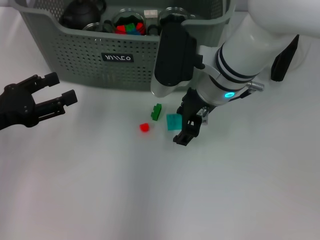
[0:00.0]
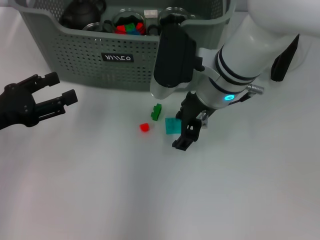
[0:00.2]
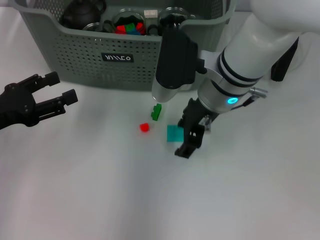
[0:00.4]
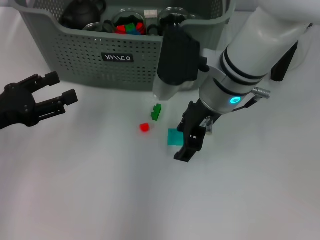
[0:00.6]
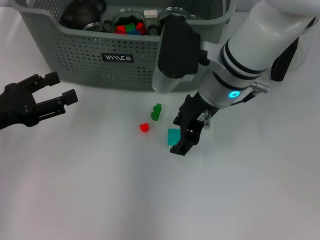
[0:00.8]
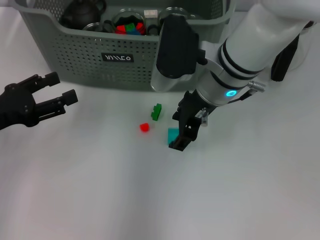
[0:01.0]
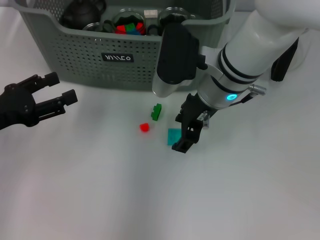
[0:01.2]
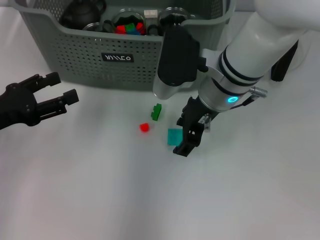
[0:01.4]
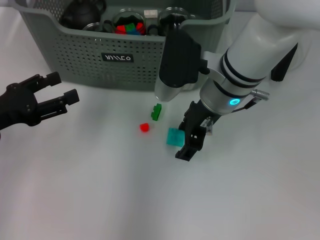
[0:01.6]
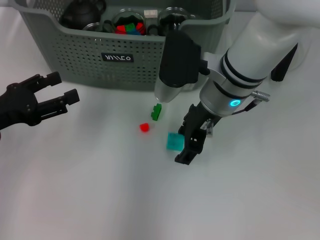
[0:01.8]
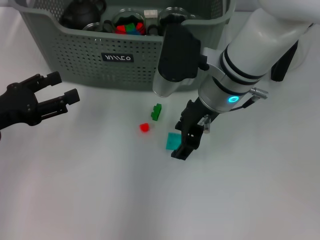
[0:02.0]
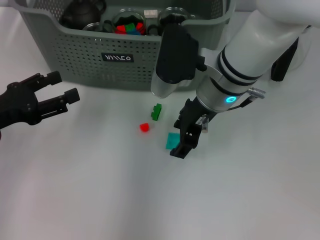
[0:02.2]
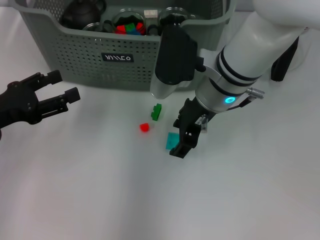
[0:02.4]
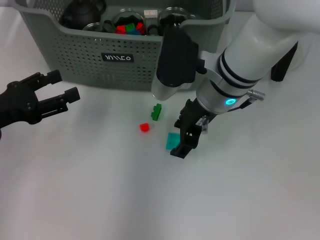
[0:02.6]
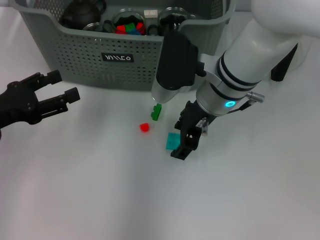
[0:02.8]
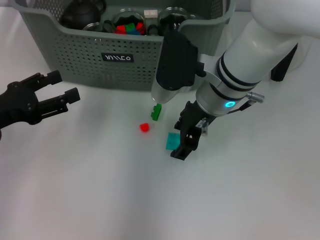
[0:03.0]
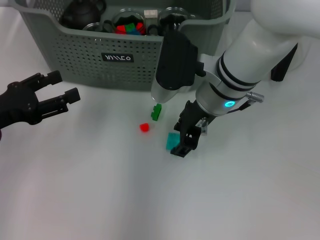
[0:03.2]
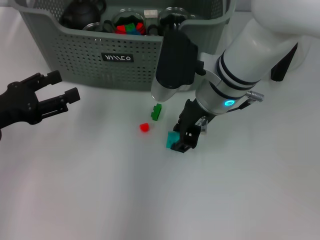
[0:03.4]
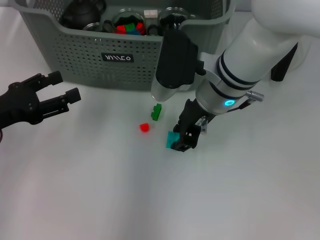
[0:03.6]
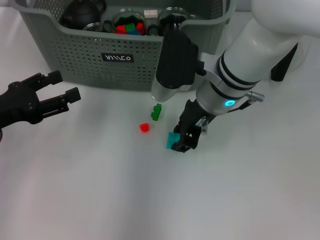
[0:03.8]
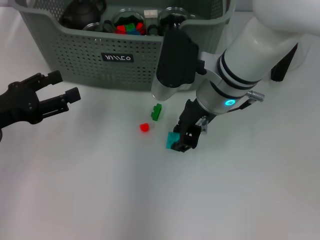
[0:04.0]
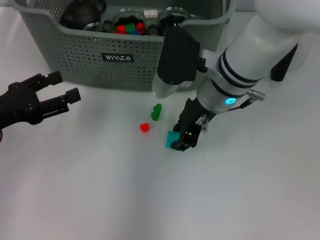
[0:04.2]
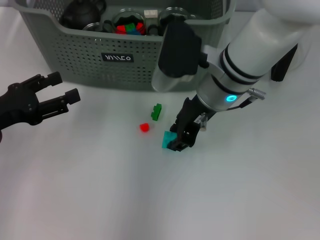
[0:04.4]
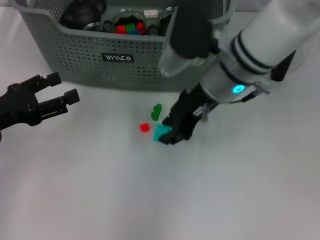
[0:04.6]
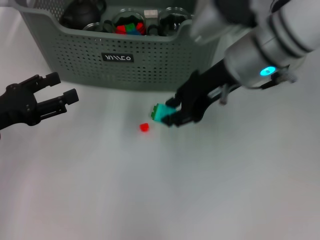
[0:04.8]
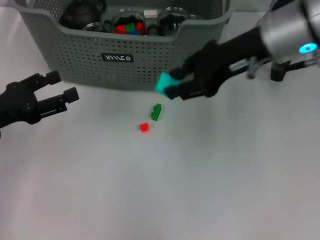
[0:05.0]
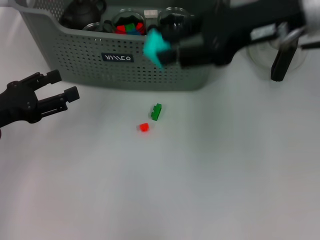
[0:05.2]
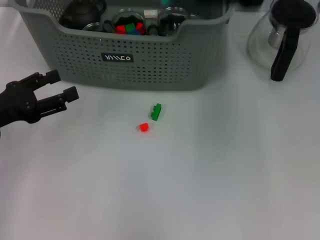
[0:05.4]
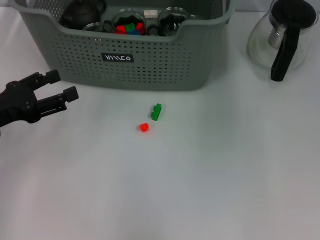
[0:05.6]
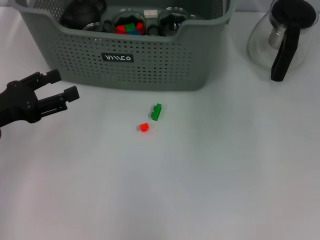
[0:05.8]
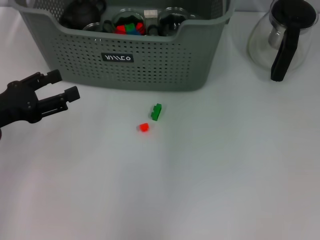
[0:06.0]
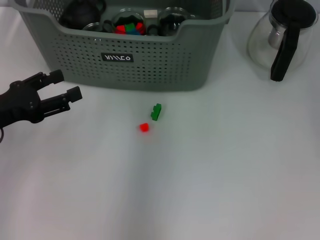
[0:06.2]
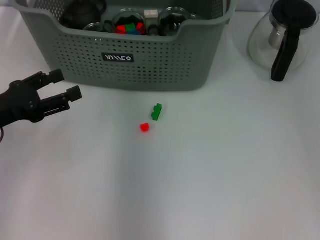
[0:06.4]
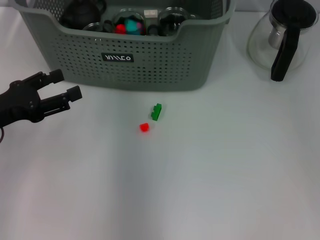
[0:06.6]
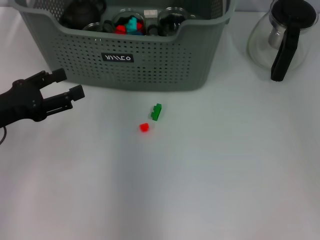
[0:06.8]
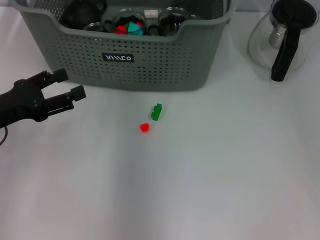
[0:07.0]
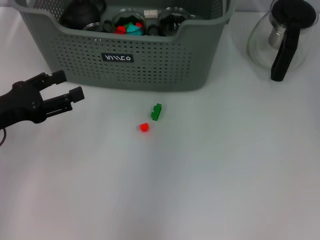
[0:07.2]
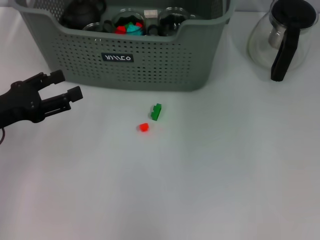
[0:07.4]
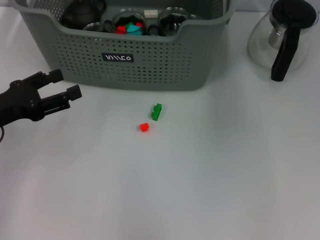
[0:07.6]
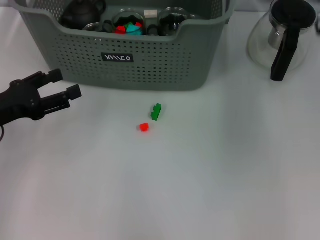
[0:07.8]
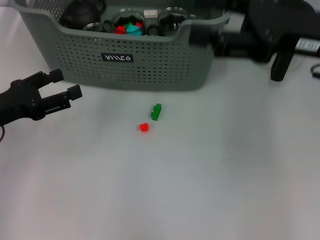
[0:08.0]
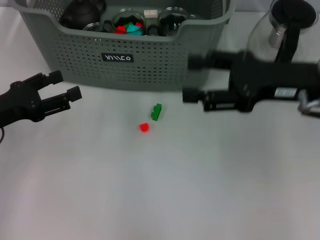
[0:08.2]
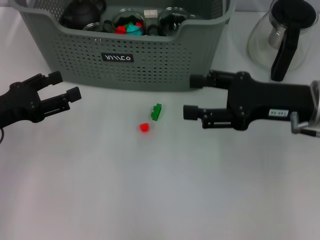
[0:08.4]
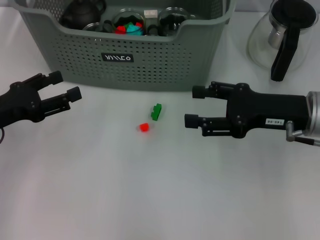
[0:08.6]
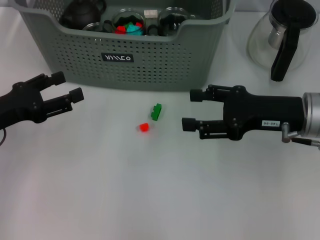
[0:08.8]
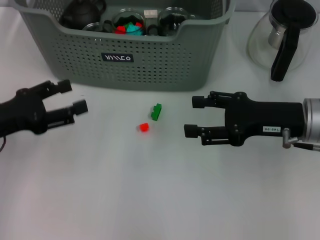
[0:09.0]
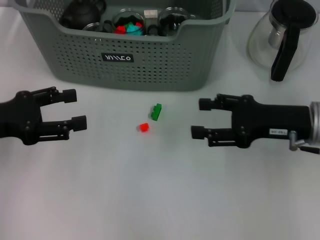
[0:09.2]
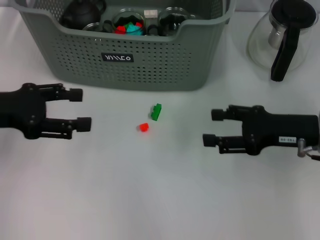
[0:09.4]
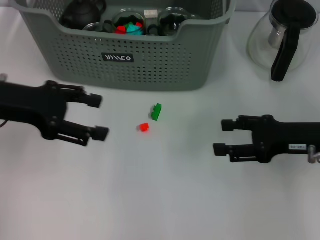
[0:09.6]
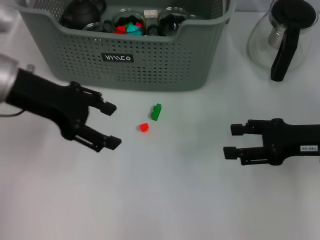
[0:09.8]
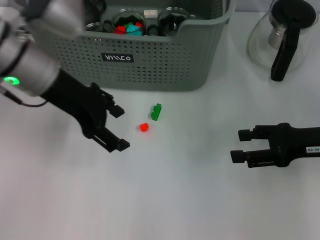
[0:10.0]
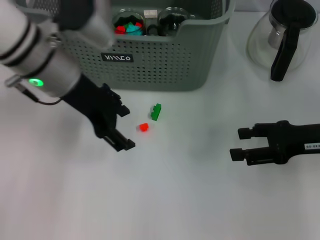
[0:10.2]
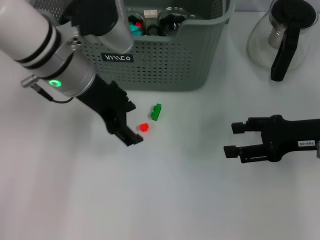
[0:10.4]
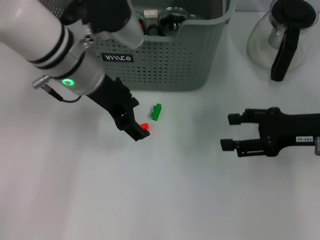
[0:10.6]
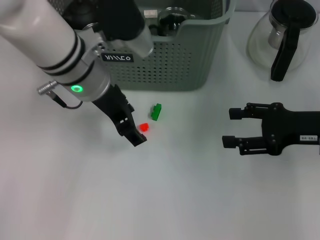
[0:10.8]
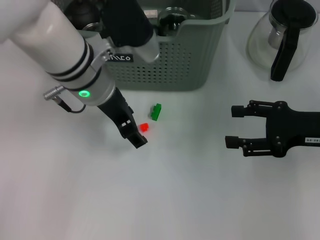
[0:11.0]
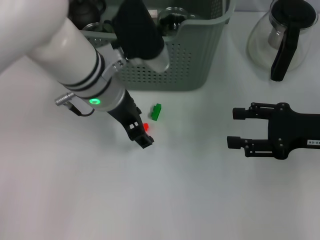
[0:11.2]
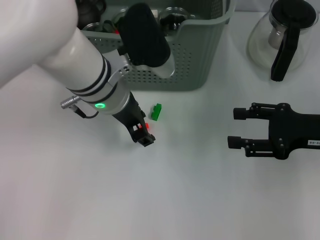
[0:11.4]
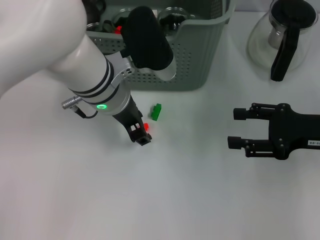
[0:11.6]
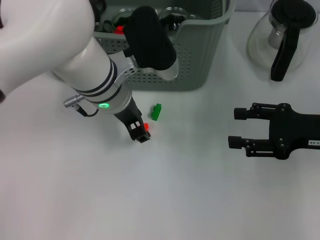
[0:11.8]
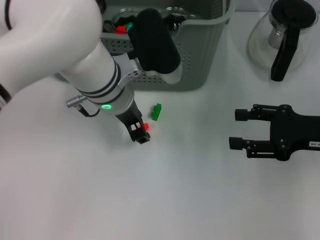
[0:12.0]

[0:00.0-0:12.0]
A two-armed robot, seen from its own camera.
Task of the whole recording: pick up the teacup on the table and place it into the storage bin, pick up the block on the table and place it into the storage bin.
Step, 0:00.0 to 0:03.8: Grasp the light blue block with right gripper.
Step, 0:04.0 to 0:06.6: Place the light blue block in the storage box with right gripper.
0:00.0 to 0:01.6: The grippers make only small movements.
0:01.6 to 0:03.0: The two grippers keep their place.
0:03.0 to 0:04.4: The right gripper closes.
0:04.4 to 0:06.0: The right gripper shifts some 20 cm upward.
0:06.0 to 0:07.6: The right gripper is displaced downward, to the right and backward by approximately 10 cm, and closes and opens again.
0:07.6 to 0:09.0: The right gripper travels downward by some 15 cm, and opens its fingers.
0:09.0 to 0:10.4: The right gripper moves to the right, roughly 5 cm; the left gripper is displaced to the right, forward and upward by approximately 20 cm.
0:10.4 to 0:12.0: The left gripper shifts some 5 cm to the right, and closes its fingers.

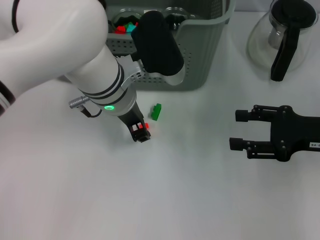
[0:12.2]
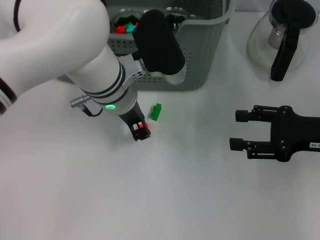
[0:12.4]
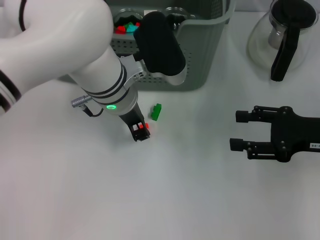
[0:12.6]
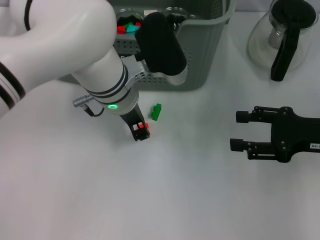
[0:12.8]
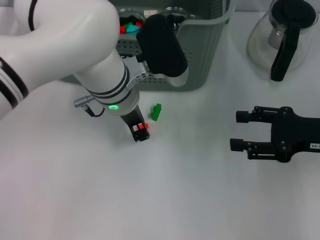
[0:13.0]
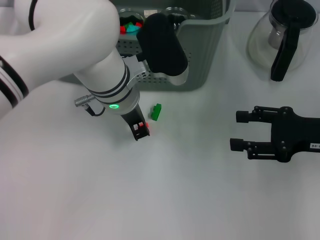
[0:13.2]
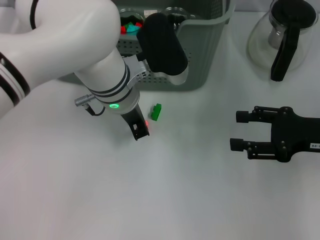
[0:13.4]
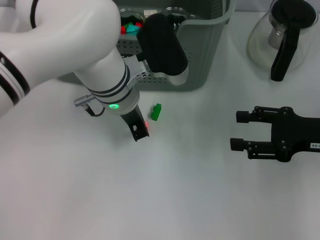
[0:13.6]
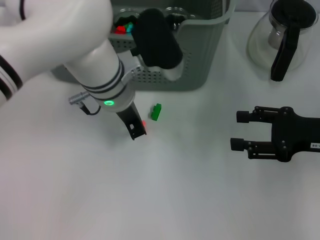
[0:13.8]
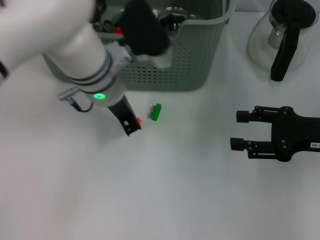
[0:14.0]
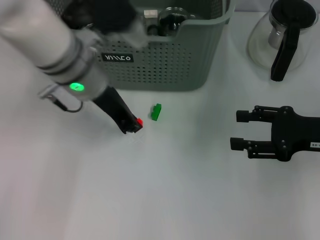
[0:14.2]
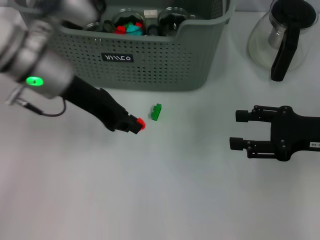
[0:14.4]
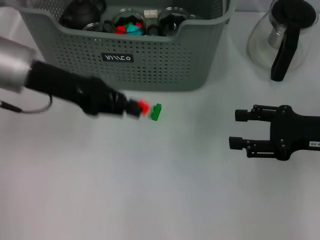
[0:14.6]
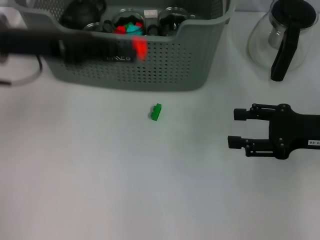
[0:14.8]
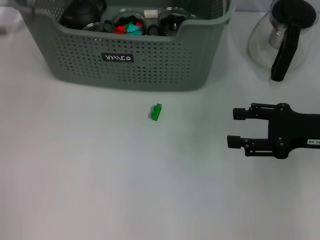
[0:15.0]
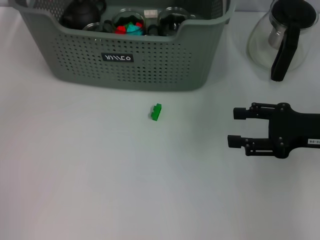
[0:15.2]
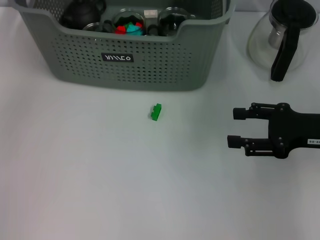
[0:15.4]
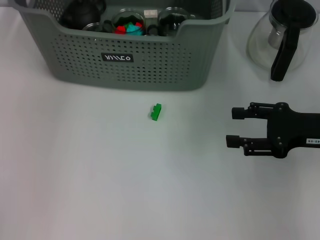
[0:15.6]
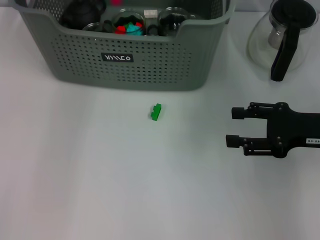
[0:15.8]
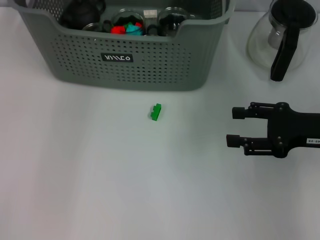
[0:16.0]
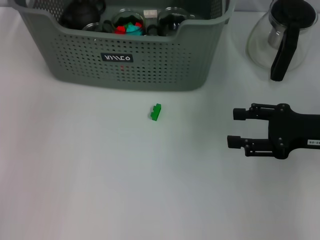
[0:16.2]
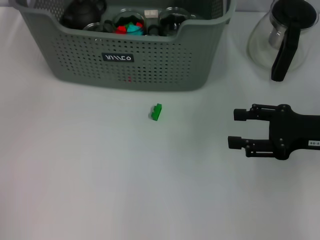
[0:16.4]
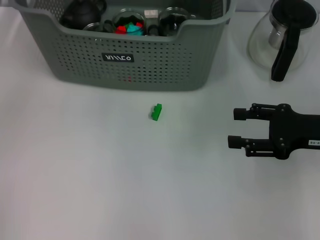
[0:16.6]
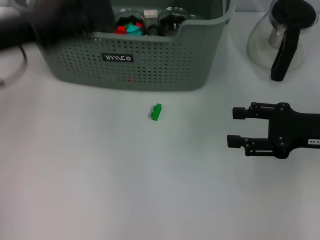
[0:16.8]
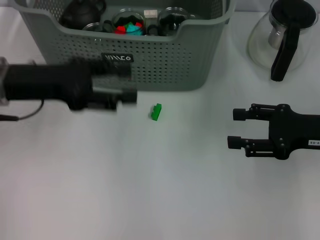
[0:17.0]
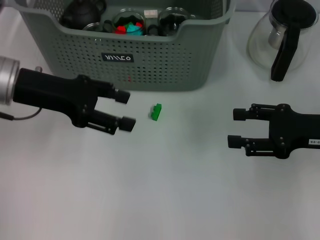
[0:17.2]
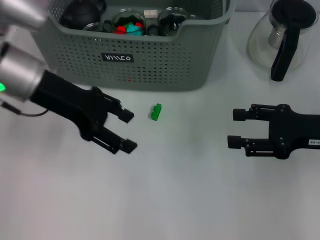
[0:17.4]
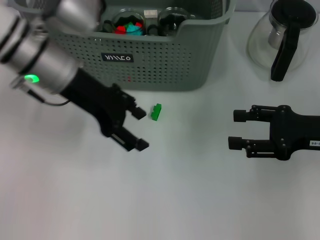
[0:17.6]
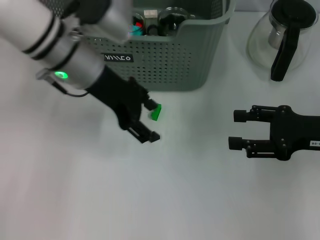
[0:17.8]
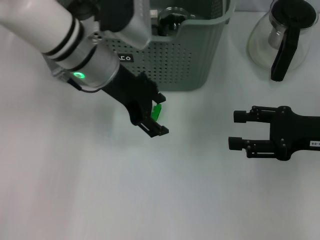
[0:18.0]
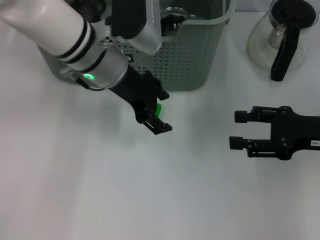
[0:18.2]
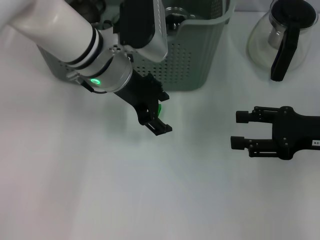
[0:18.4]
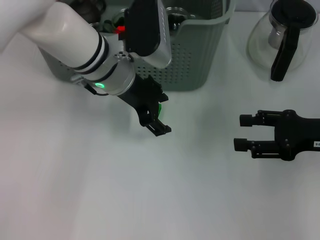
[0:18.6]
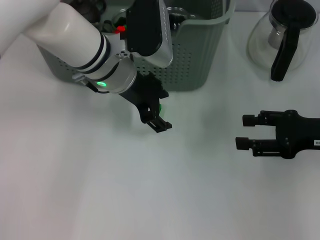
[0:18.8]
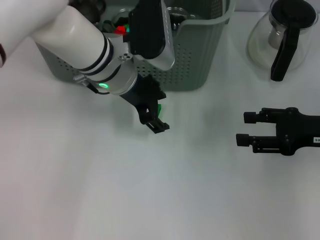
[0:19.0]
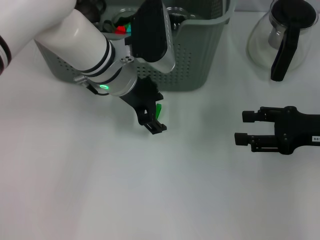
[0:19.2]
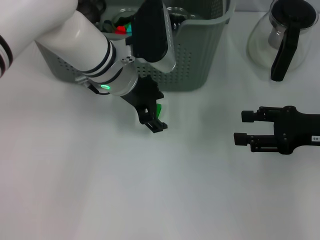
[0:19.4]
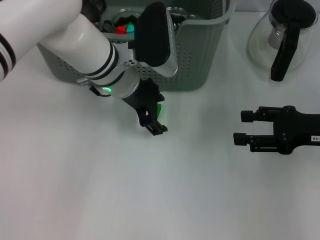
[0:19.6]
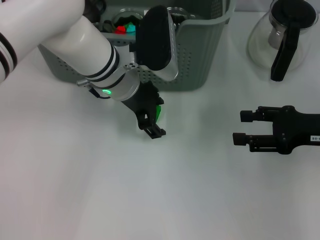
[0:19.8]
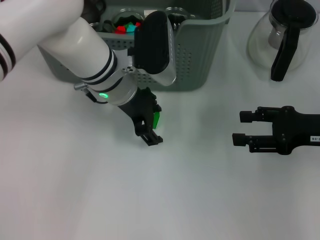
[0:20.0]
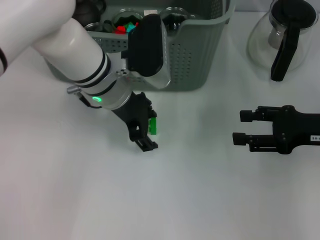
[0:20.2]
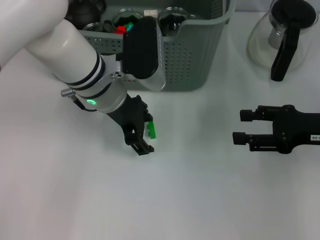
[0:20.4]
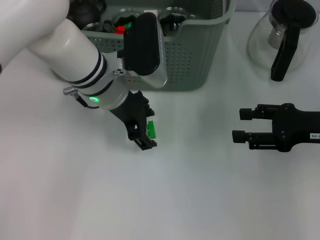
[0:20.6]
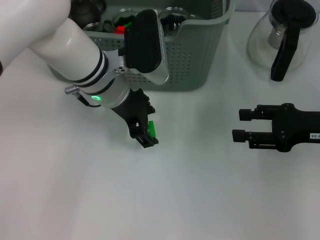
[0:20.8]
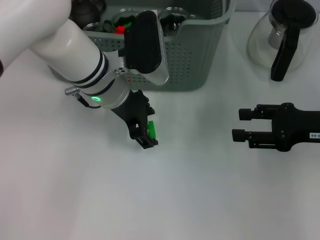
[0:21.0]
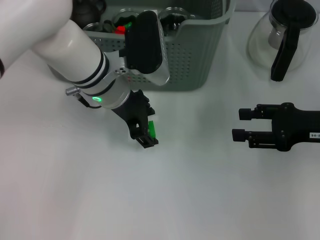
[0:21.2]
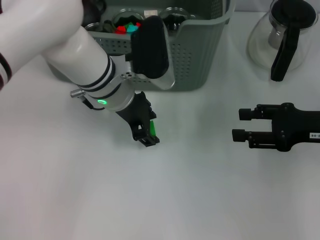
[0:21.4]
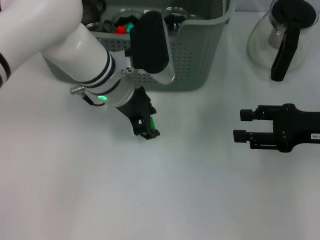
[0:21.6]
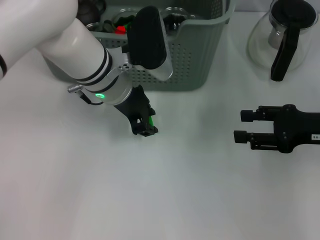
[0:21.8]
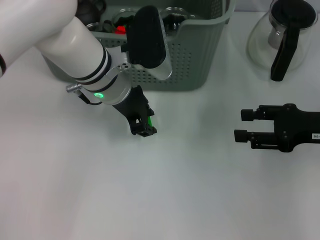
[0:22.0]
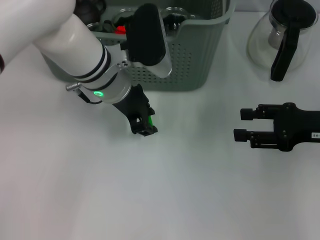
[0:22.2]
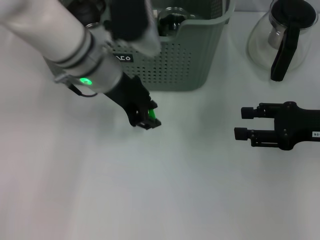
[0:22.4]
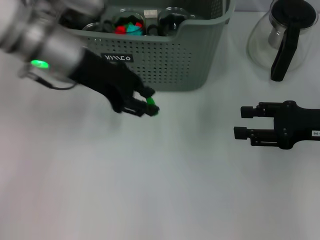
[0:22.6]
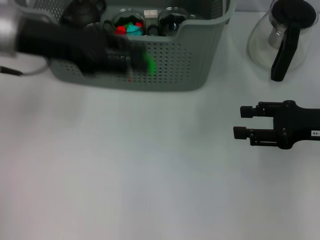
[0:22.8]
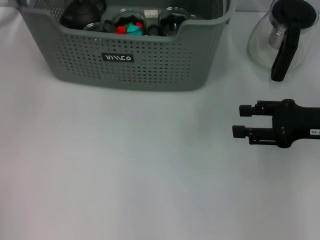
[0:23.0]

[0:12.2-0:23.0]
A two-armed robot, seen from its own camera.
Task of the whole recording: pick up the teacup on the table and place it into the storage bin, pick up the block on the table and place it into the storage bin.
Step, 0:13.8 to 0:15.8: Place the orange block in the storage box with left gripper.
Step, 0:16.2 to 0:21.8: Grasp the green block with left gripper.
0:12.2 to 0:13.8: The left gripper closes.
0:13.8 to 0:15.2: The left gripper goes about 20 cm to the left and upward.
0:15.2 to 0:16.8: The left gripper shifts approximately 15 cm downward and backward, and opens up.
0:16.8 to 0:18.4: The left gripper goes about 15 cm to the right.
0:18.4 to 0:21.4: The grippers move only a little.
0:21.4 to 0:23.0: The left gripper shifts some 20 cm to the left and upward.
